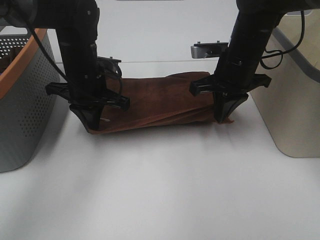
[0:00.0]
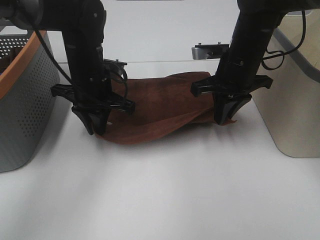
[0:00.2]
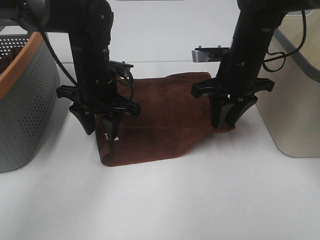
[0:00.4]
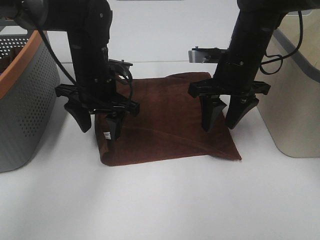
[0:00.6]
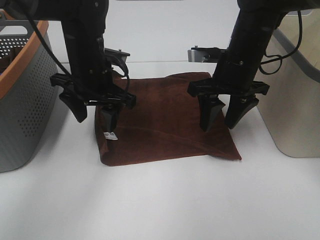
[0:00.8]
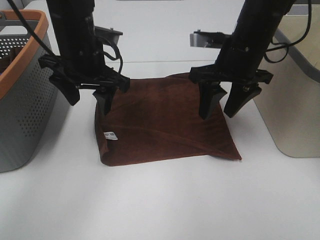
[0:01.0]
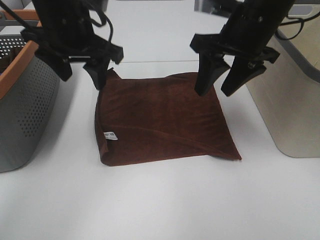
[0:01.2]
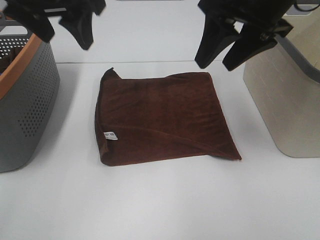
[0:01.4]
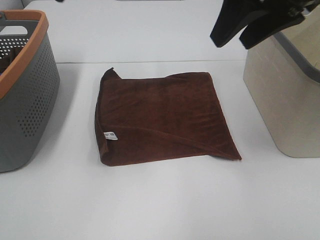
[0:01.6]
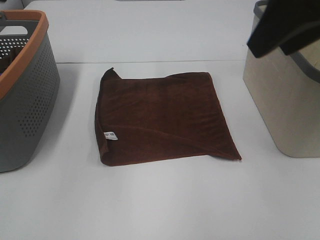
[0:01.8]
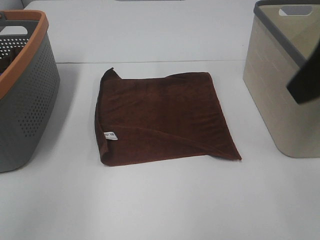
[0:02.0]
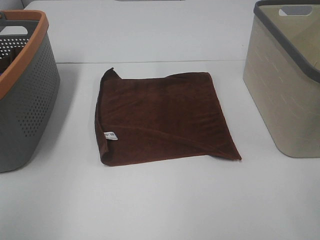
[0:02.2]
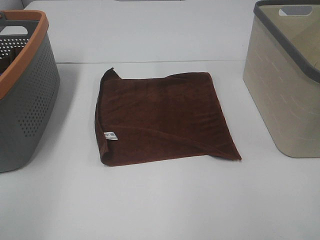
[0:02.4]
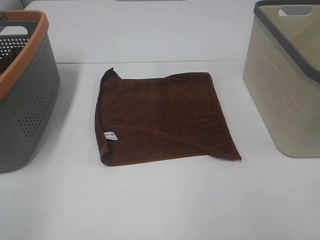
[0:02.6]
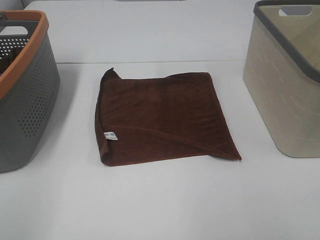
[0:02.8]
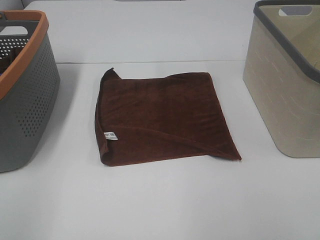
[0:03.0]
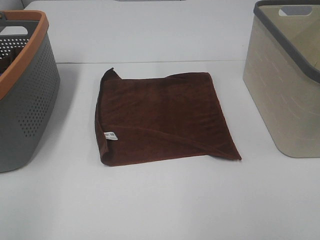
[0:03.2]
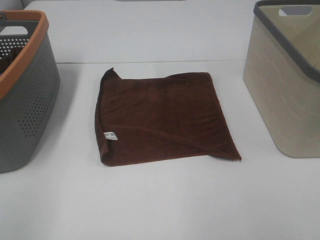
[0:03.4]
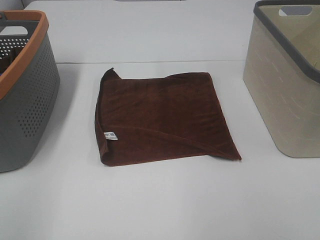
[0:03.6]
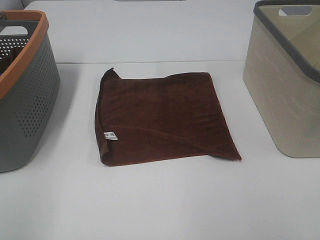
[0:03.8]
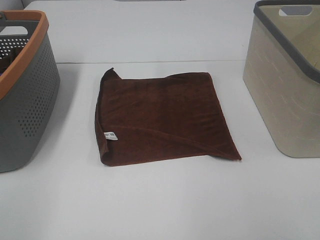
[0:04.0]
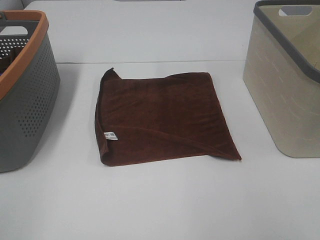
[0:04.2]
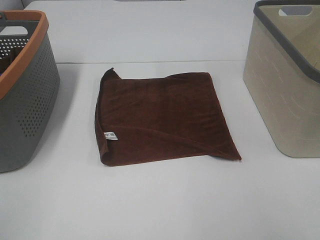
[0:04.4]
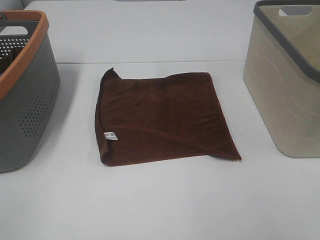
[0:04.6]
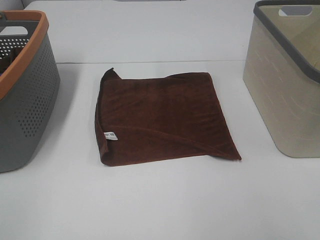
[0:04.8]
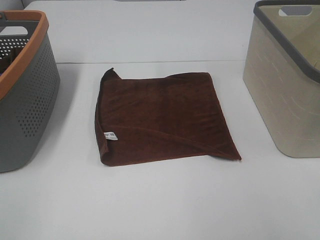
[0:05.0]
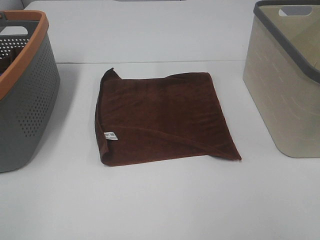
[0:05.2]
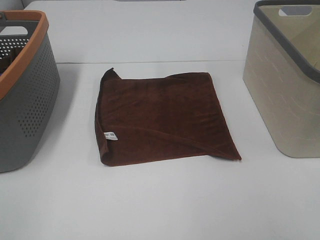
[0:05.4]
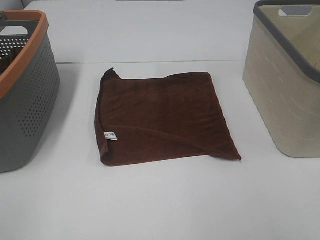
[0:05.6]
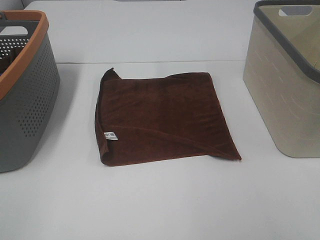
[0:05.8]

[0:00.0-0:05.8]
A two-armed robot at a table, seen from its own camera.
Task of the whole recording: Remove the towel and place it.
0:00.0 to 0:01.4: The right gripper moves upward and backward, roughly 15 cm, and opens its fingers. Meanwhile the left gripper heads upward, covering approximately 20 cm, and opens its fingers.
0:01.4 to 0:02.8: The left gripper heads backward and to the left, covering some 35 cm; the right gripper moves backward and to the right, some 30 cm.

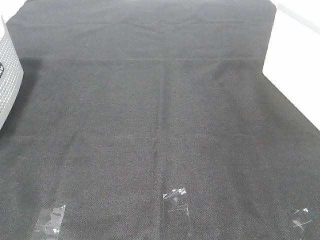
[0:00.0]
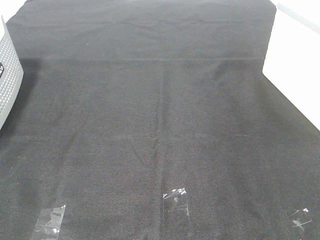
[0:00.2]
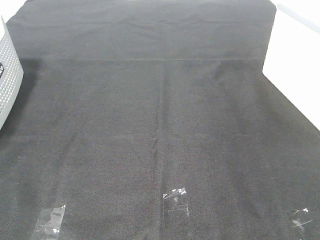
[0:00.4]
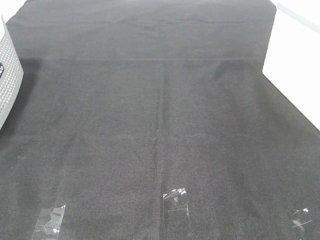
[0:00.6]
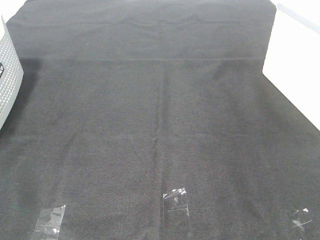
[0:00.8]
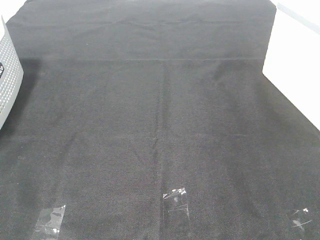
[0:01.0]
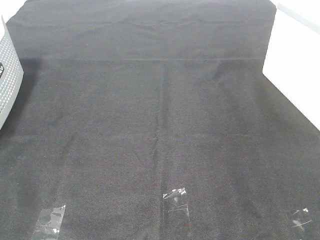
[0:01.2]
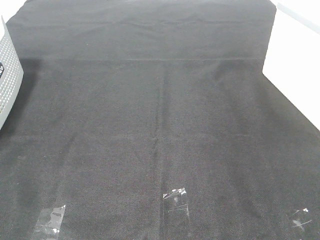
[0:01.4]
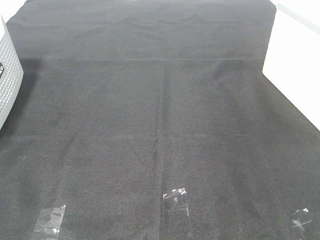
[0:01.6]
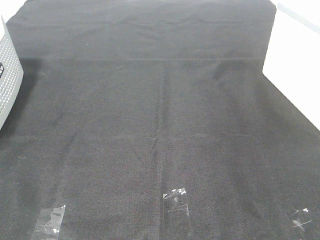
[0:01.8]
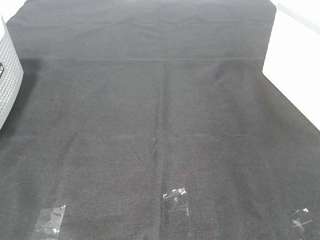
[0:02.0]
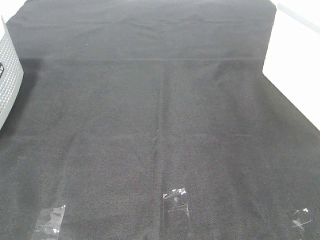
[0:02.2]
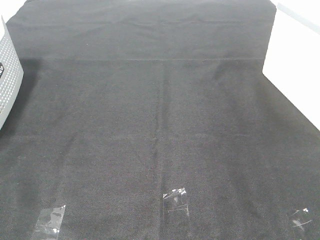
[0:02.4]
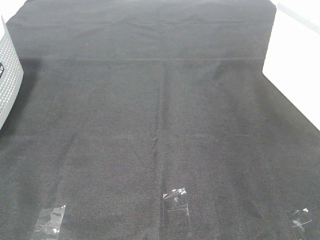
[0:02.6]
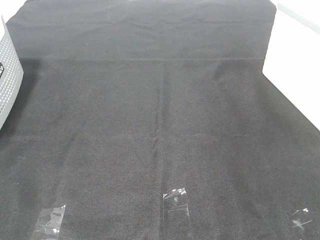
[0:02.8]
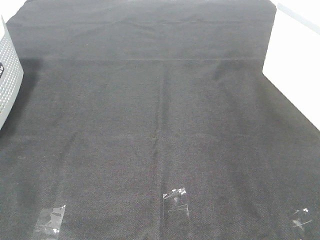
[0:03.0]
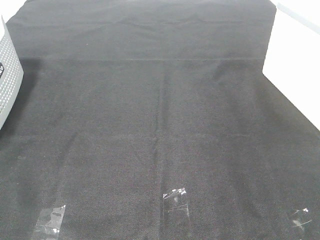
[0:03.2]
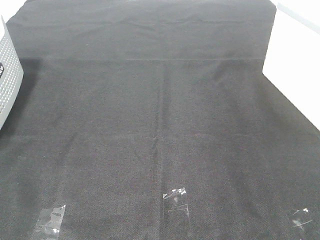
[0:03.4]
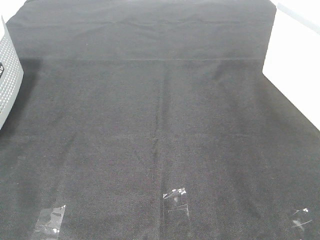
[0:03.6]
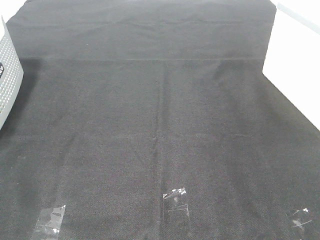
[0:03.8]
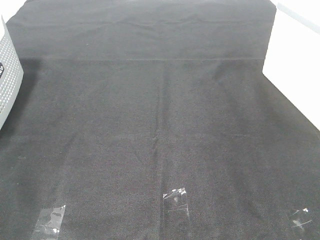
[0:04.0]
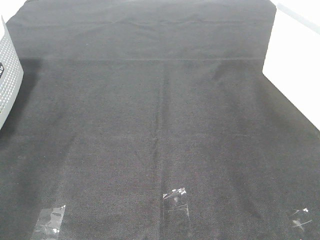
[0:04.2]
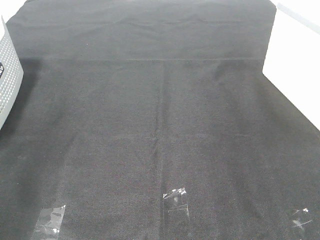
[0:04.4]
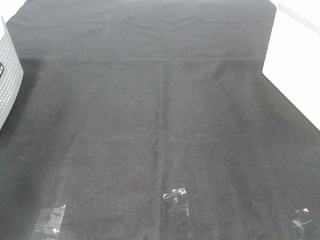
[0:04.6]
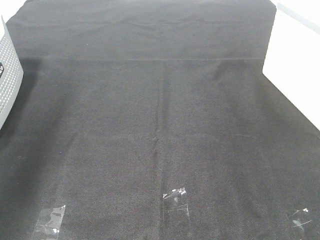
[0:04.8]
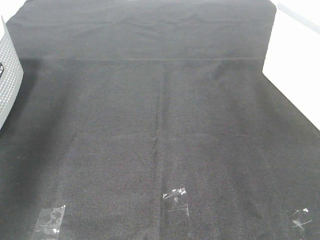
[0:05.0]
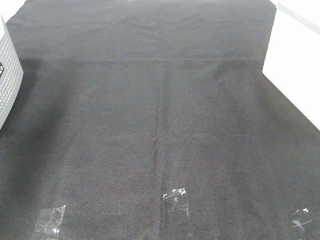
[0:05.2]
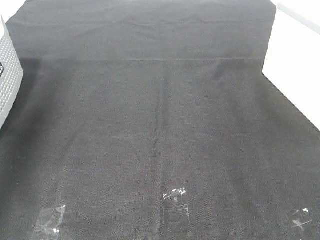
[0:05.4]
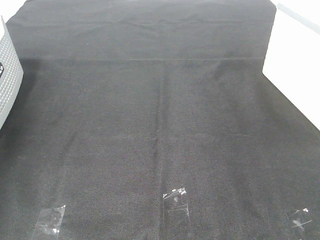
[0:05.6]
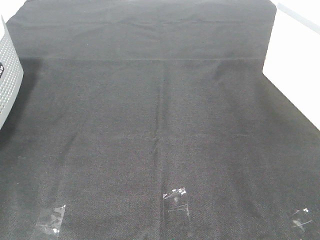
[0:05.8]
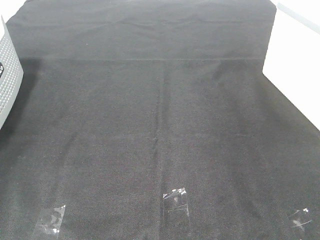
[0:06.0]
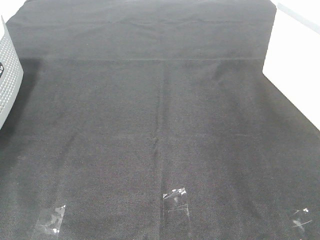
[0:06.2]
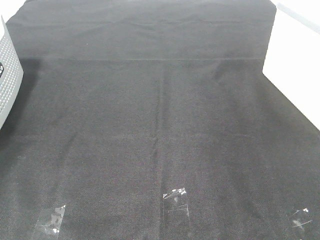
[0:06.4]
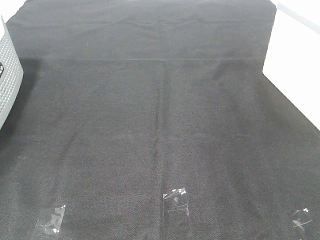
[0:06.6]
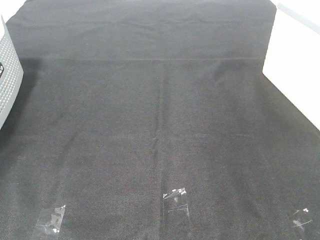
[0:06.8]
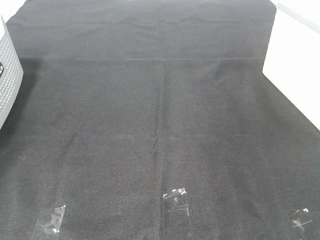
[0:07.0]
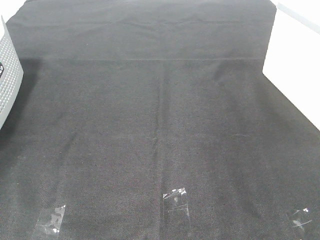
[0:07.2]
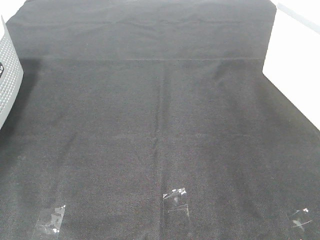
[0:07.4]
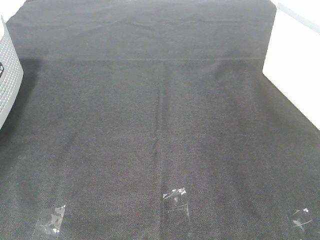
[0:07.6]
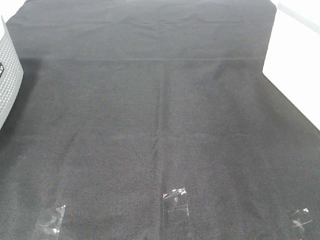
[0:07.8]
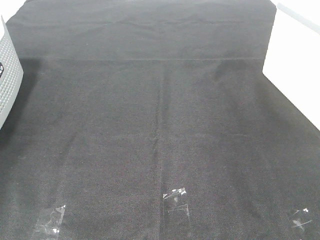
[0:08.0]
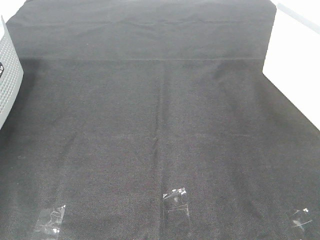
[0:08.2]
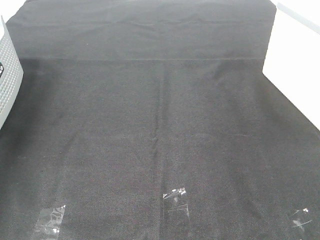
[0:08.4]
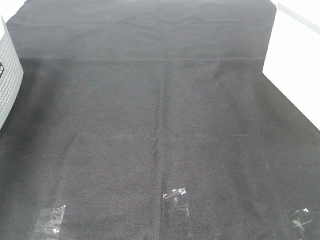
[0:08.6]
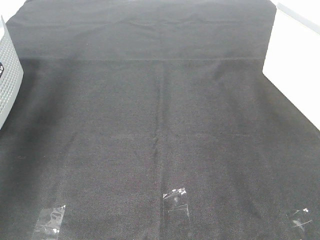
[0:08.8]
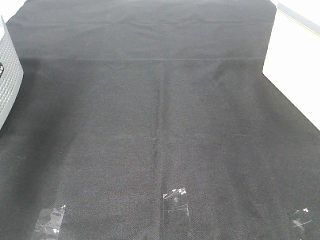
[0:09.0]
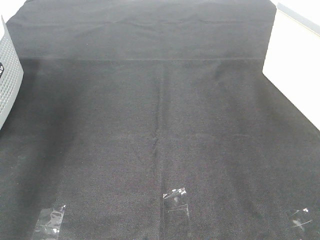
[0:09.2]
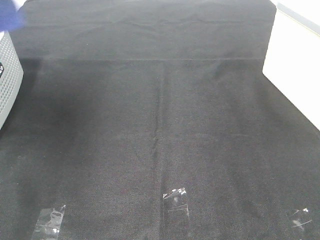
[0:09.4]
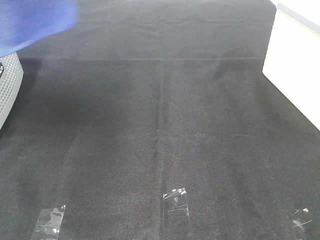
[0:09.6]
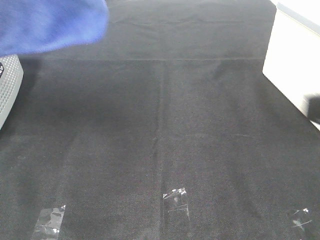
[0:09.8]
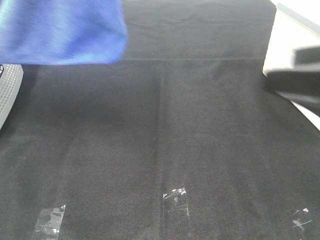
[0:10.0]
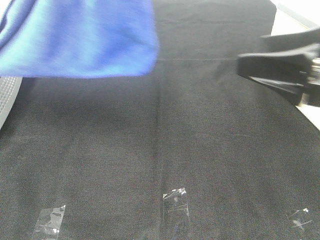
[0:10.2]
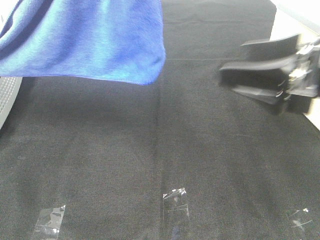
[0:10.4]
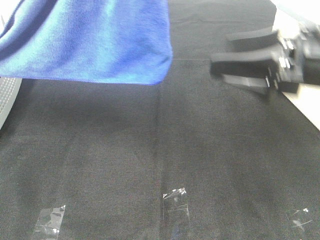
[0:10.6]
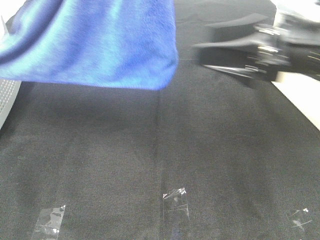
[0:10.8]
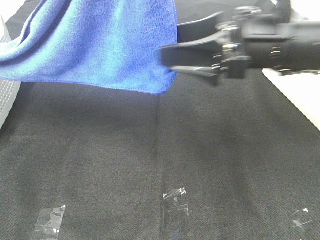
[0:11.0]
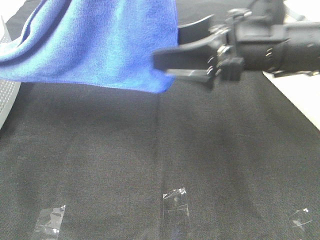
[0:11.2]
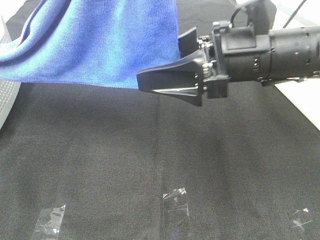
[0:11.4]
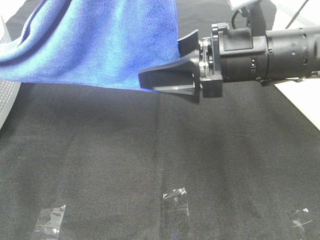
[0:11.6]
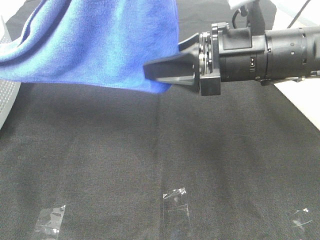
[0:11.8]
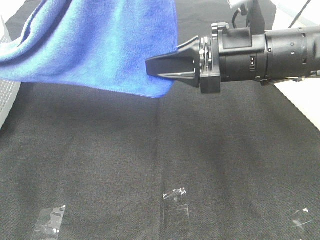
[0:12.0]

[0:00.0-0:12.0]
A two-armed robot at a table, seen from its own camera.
Task of the whole recording: Remove the towel and place it.
0:00.0 to 0:03.0: Neither gripper changes place.
0:04.4 to 0:06.0: The left gripper moves forward and to the left, about 35 cm.
0:07.6 to 0:09.0: The left gripper shifts approximately 35 cm upward and to the right.
0:09.0 to 0:10.4: The right gripper goes roughly 20 cm forward. The left gripper travels to the right by about 25 cm.
0:10.4 to 0:12.0: The right gripper goes approximately 10 cm to the left and forward, and closes.

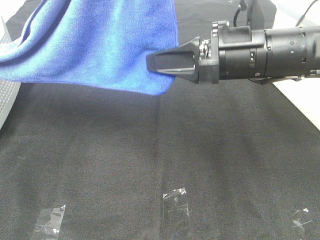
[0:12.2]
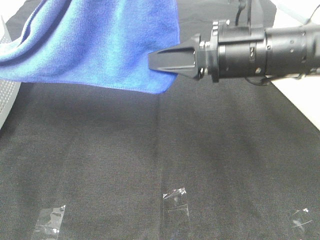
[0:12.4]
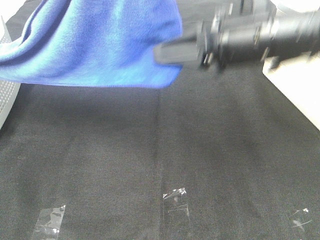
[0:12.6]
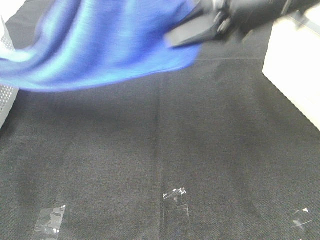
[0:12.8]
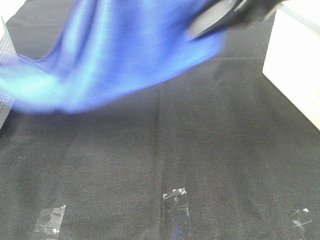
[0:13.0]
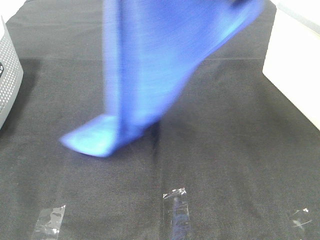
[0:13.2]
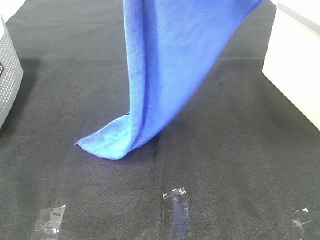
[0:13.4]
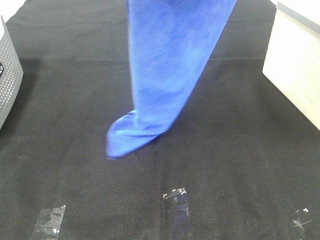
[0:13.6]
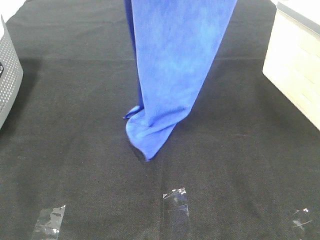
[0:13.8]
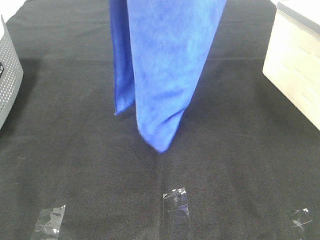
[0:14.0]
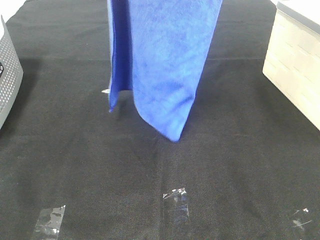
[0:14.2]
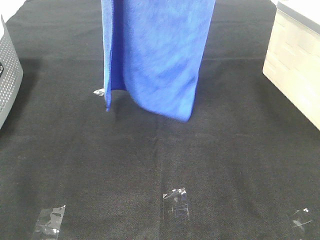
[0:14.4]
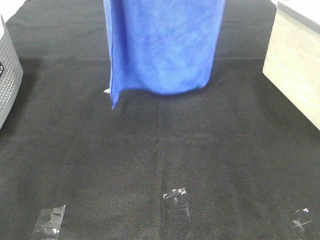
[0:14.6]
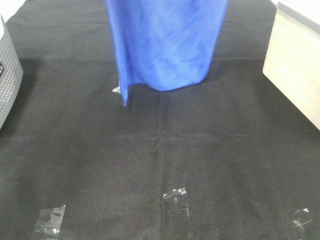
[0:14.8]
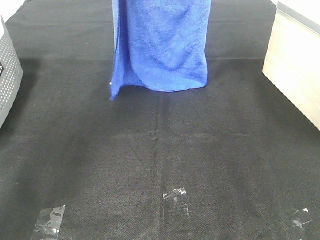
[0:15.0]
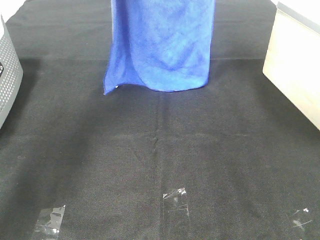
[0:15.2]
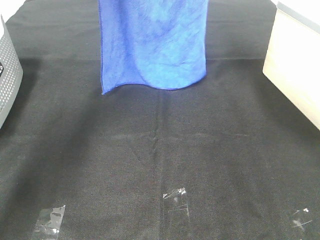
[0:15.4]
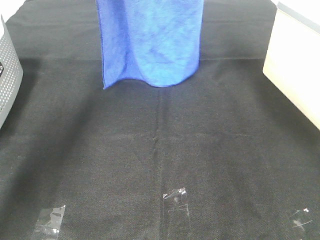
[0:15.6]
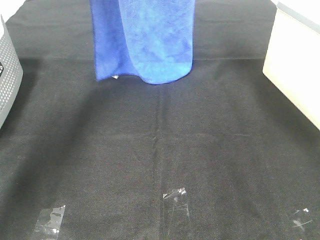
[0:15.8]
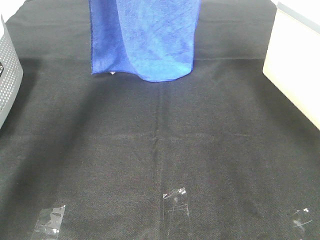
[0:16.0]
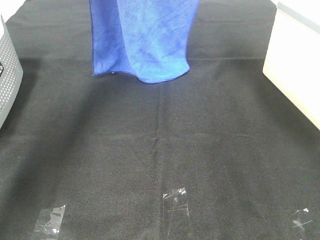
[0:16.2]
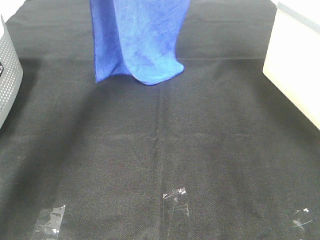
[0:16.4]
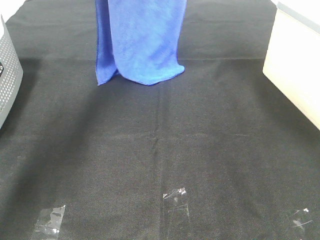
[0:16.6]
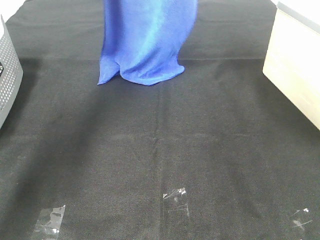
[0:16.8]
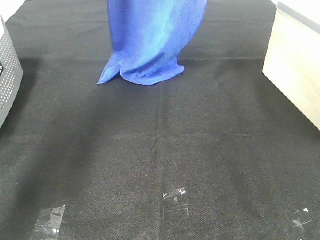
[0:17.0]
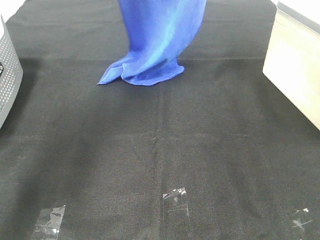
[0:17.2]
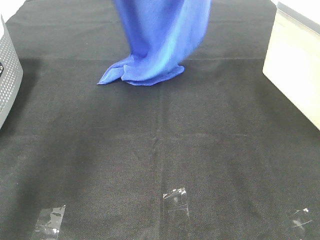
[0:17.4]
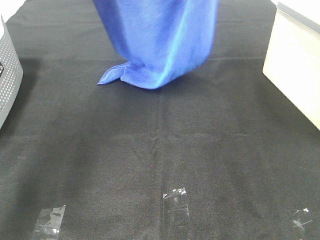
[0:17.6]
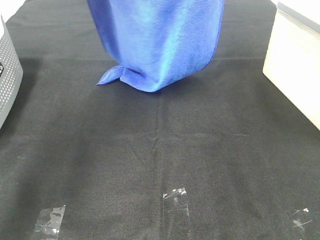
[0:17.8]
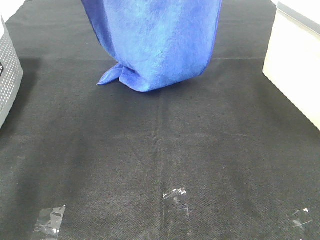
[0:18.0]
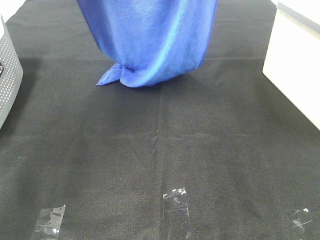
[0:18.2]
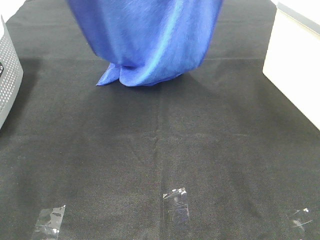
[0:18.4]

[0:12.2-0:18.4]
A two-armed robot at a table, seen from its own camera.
Task of the whole recording: Remove the towel and place it.
0:12.2 to 0:13.8: The left gripper heads forward, covering approximately 5 cm. The right gripper shifts about 25 cm upward.
0:13.8 to 0:15.4: The grippers both shift forward by some 20 cm.
0:16.8 to 0:18.4: The grippers both shift backward by about 15 cm.
